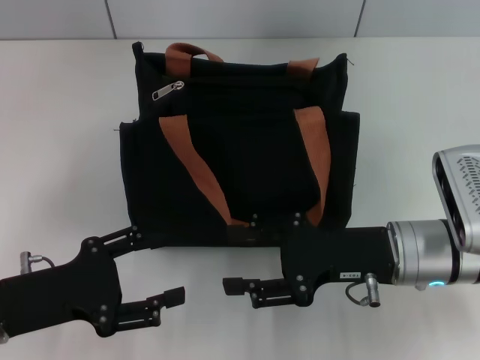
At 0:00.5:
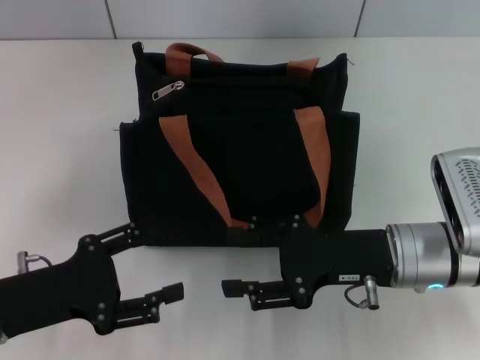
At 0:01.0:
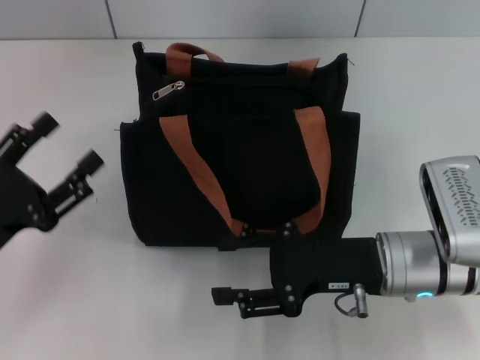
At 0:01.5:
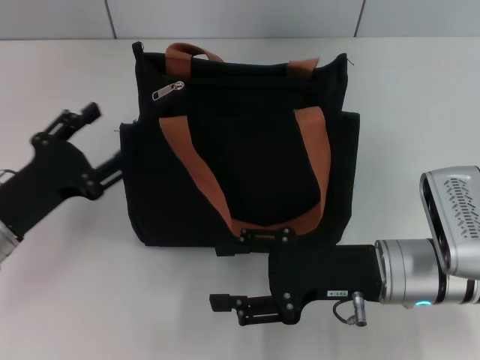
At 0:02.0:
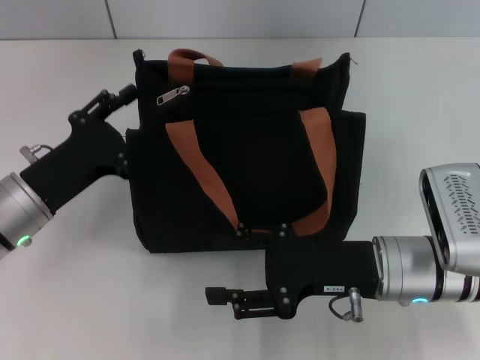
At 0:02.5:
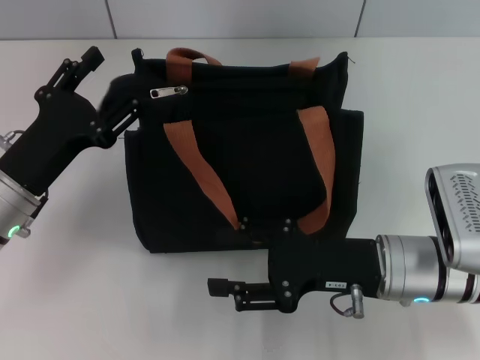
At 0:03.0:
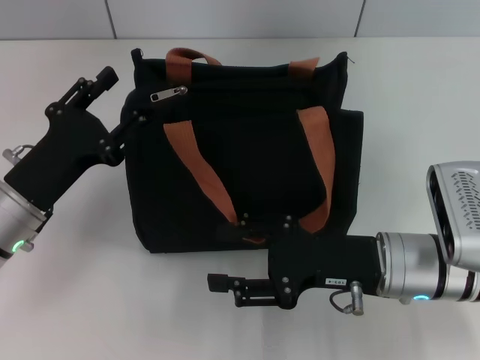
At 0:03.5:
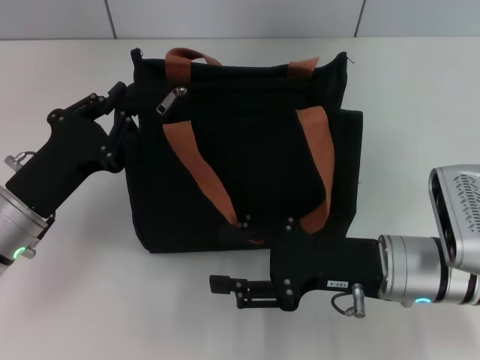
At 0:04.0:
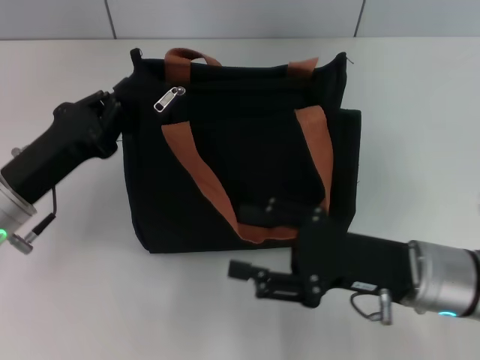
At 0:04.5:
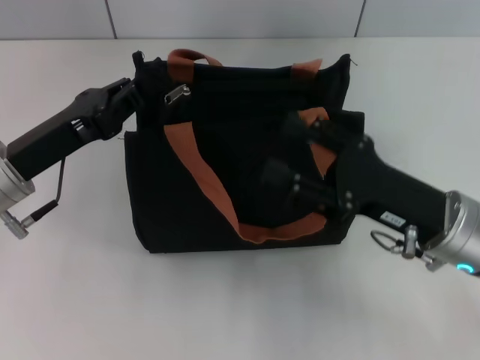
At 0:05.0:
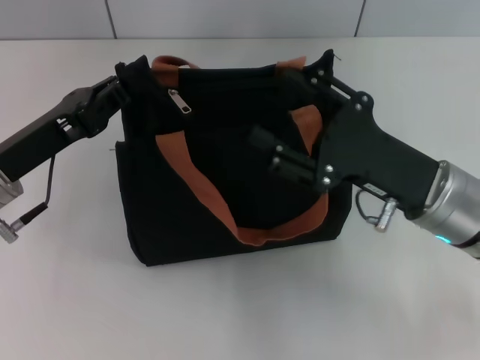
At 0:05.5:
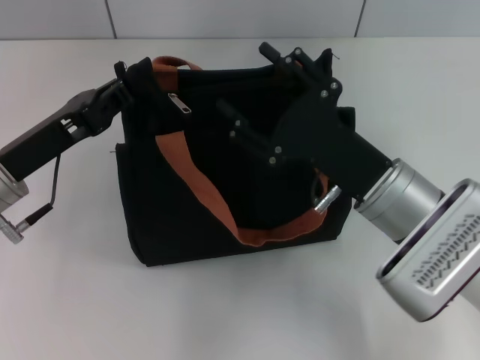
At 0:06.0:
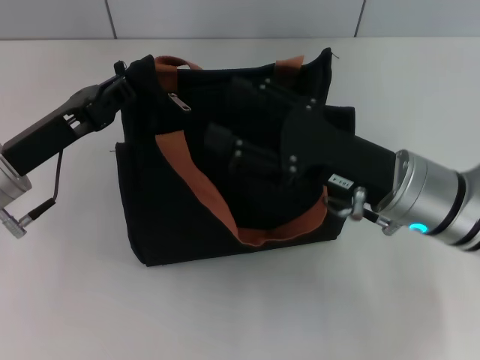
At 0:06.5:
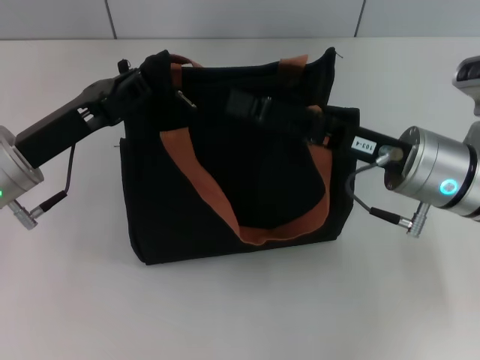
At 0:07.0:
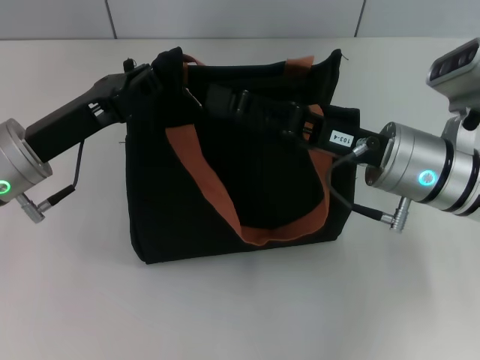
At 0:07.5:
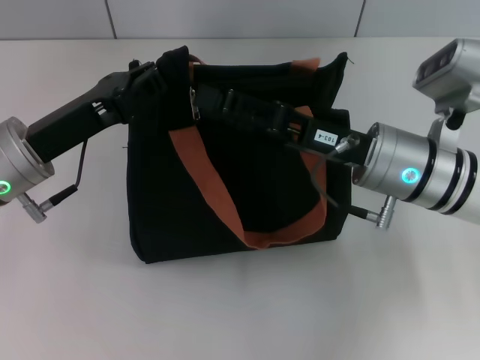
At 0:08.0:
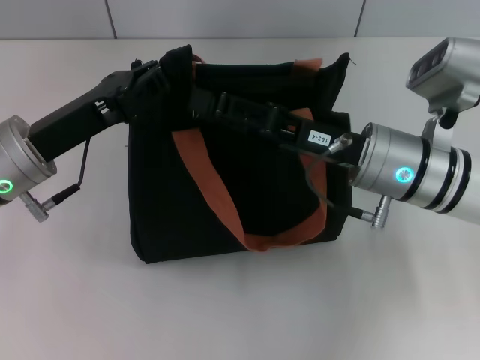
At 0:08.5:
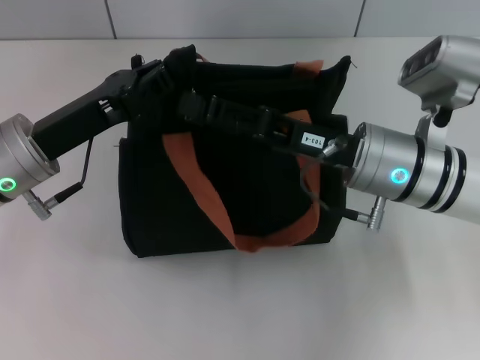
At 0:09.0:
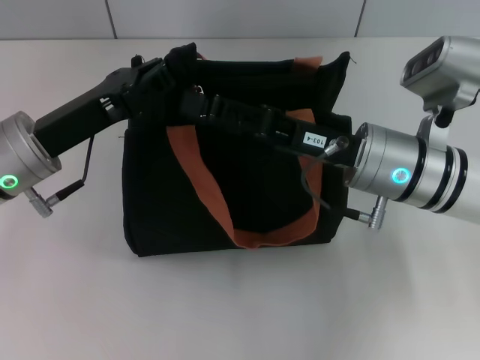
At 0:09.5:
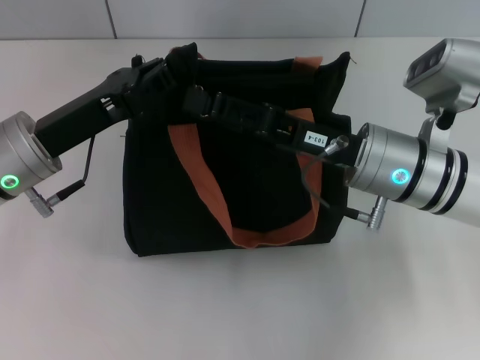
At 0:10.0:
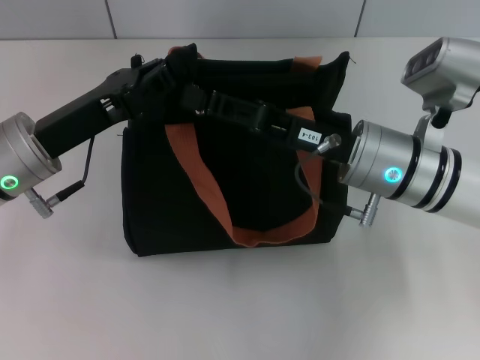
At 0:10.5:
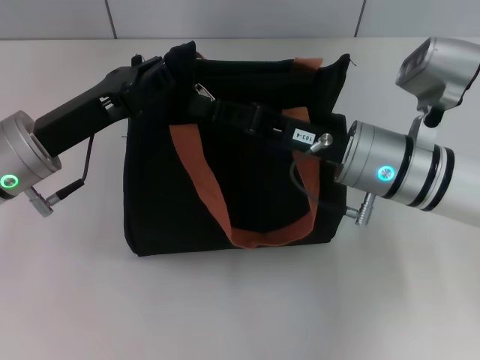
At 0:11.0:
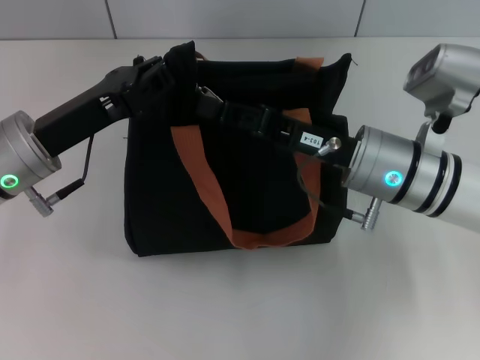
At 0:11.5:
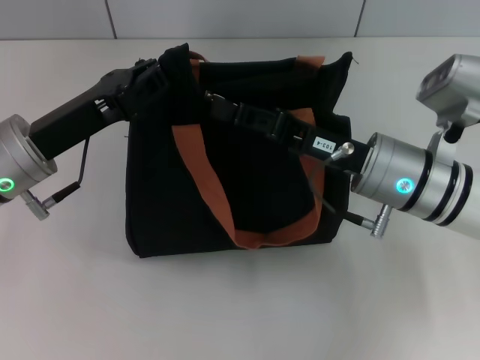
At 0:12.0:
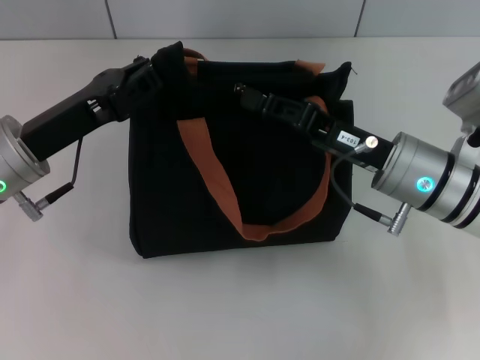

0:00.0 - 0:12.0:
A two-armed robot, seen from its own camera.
0:00.0 - 0:02.0: The left gripper shifts some 10 cm forward.
0:02.0 - 0:04.0: The left gripper closes up.
0:04.0 - 0:06.0: The right gripper shifts by some 5 cm.
0:08.0 - 0:10.0: The grippers make only small movements.
0:10.0 - 0:12.0: The right gripper closes.

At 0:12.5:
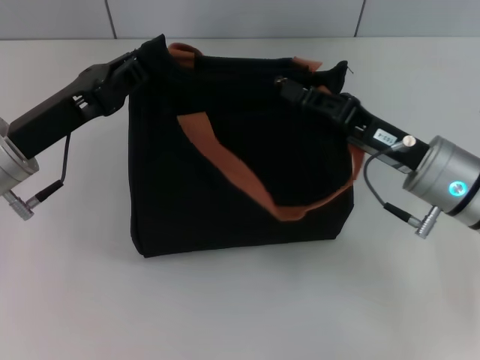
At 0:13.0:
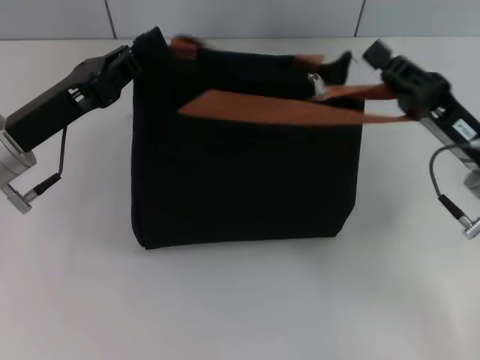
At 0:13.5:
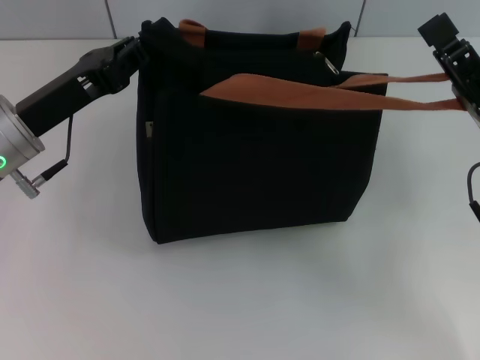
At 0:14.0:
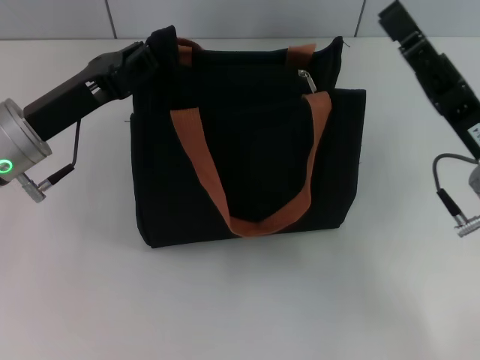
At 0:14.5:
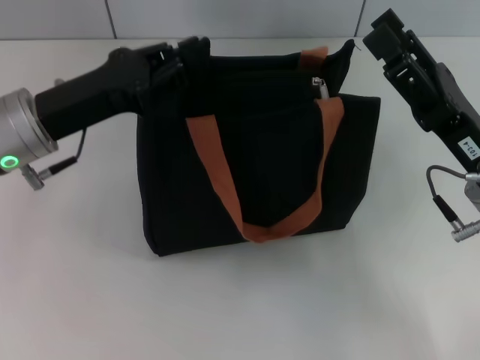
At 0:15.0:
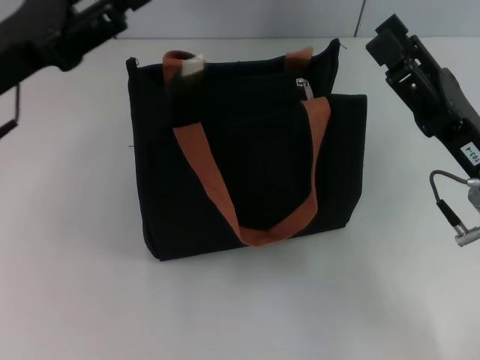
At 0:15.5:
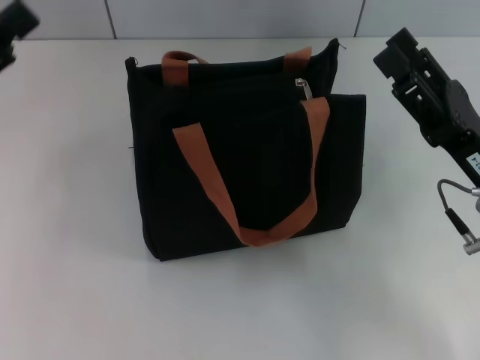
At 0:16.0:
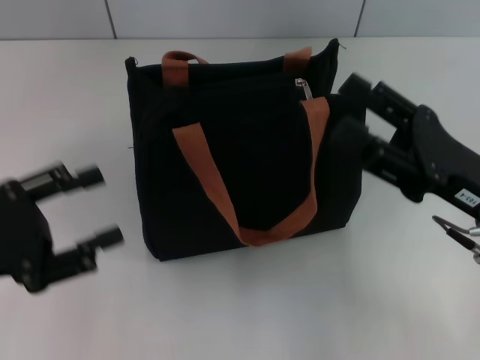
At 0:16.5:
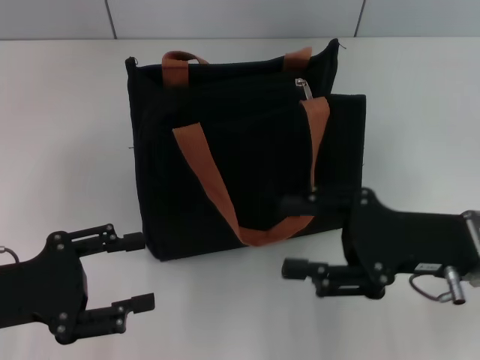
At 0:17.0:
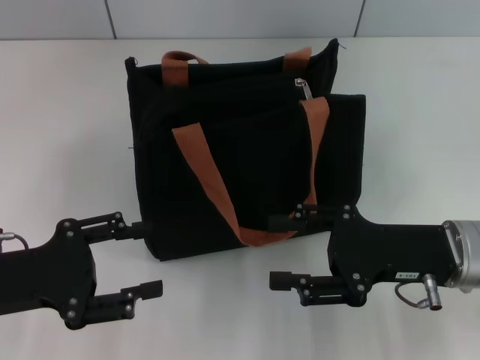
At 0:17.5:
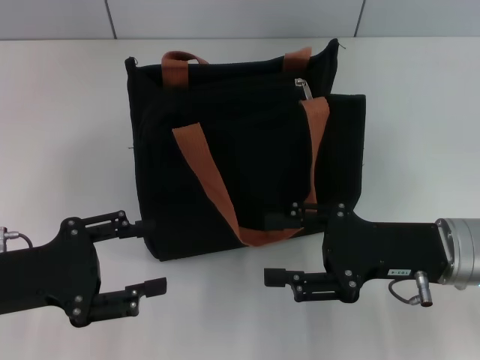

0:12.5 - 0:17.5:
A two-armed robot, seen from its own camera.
Step, 0:13.5 - 0:14.5: Grab the zipper with your left hand.
0:12.5 - 0:15.0: The left gripper moves upward, some 5 cm, and opens its fingers. Meanwhile the right gripper changes place by approximately 5 cm, and opens its fingers.
0:15.0 - 0:17.5: The left gripper shifts about 15 cm backward and downward.
